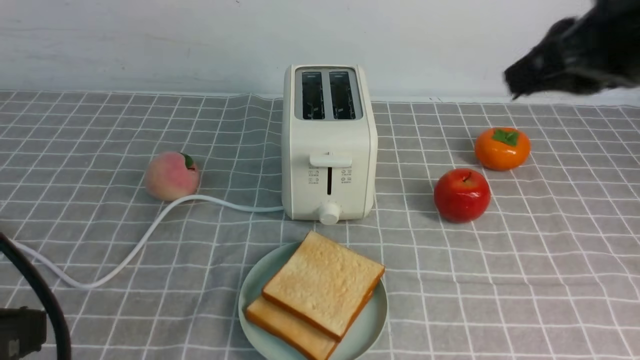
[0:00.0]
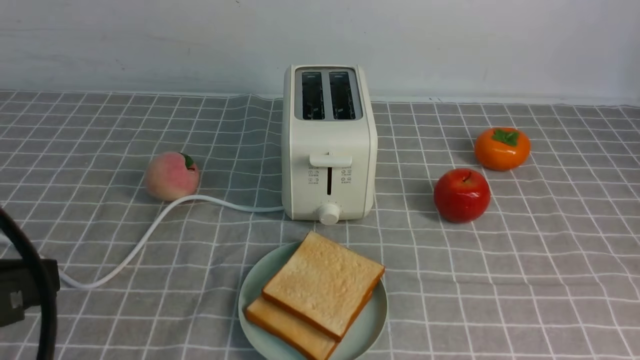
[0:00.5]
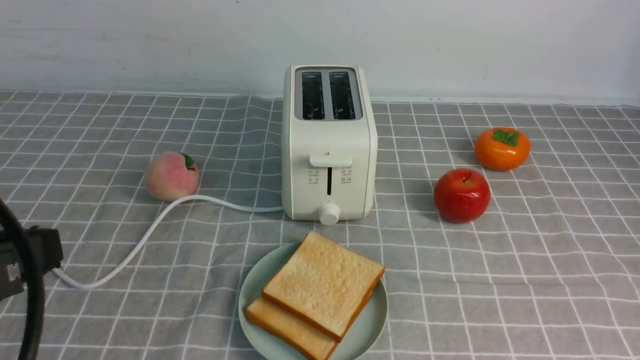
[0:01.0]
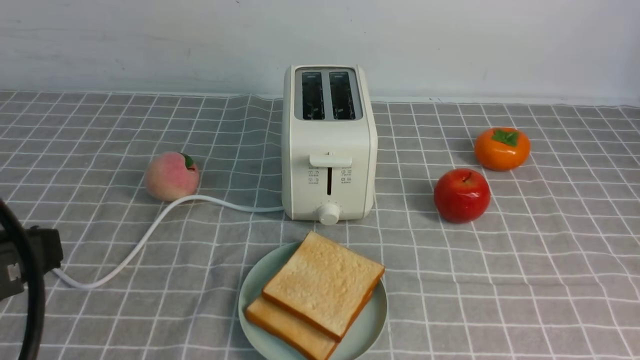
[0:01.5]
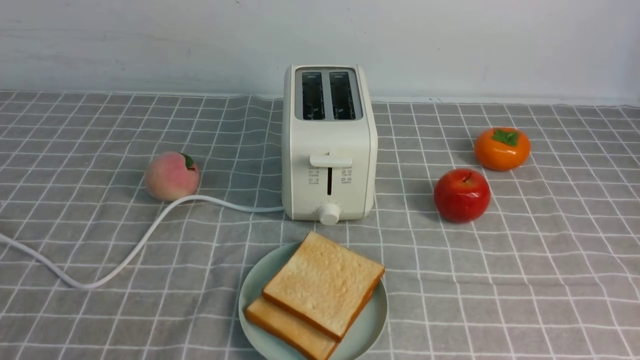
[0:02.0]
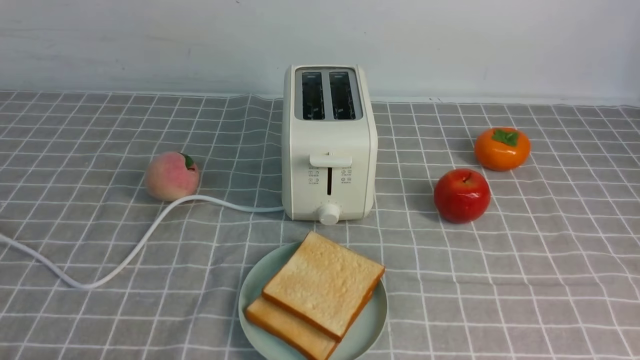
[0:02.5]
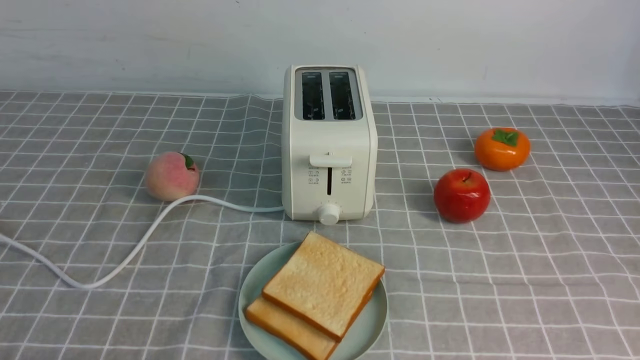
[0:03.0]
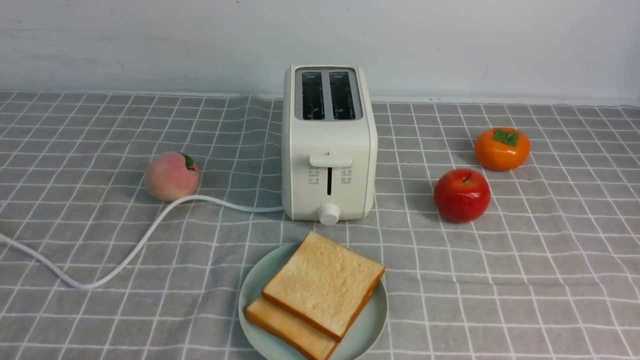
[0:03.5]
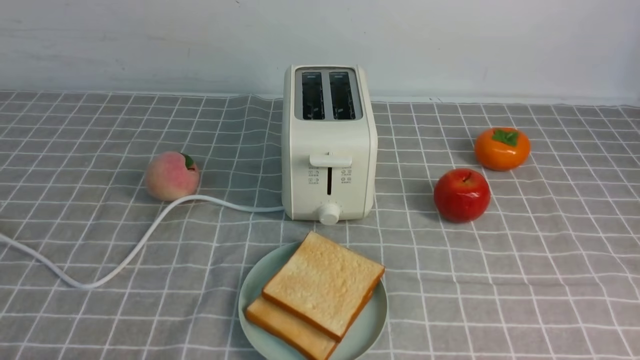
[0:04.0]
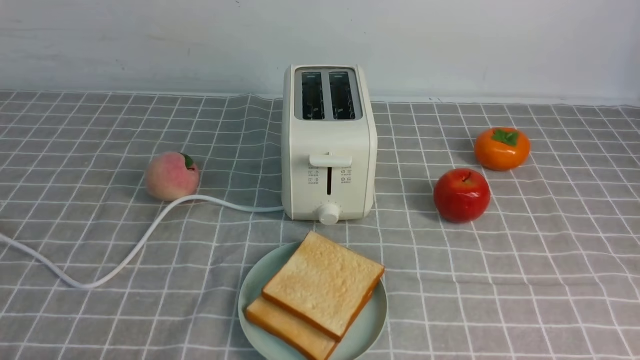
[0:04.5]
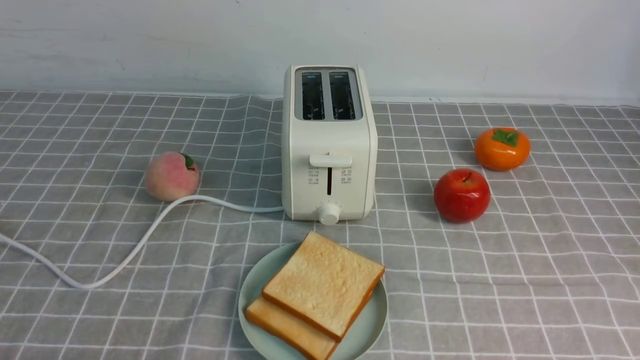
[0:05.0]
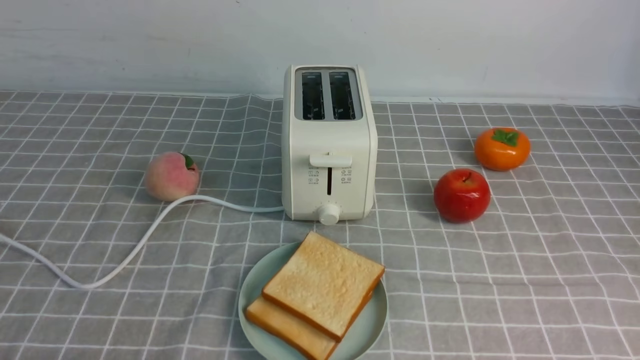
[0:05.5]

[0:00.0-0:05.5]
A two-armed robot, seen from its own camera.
Task of the whole recording: take toasted bread from bread machine on grey coffee table place on plate.
0:00.0 to 0:02.0: The left gripper heads downward, covering approximately 10 cm; the right gripper is displaced backward, downward and to the right by approximately 25 cm.
